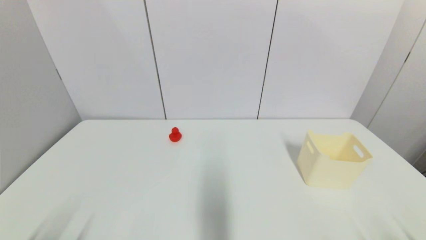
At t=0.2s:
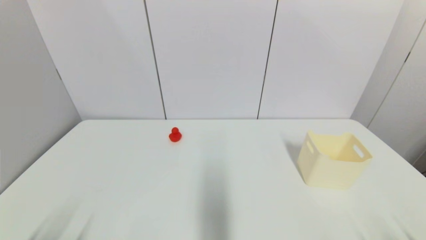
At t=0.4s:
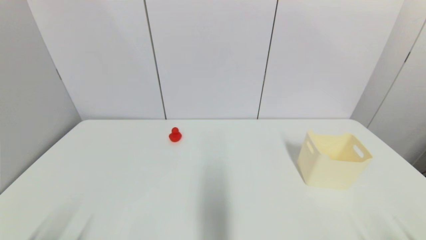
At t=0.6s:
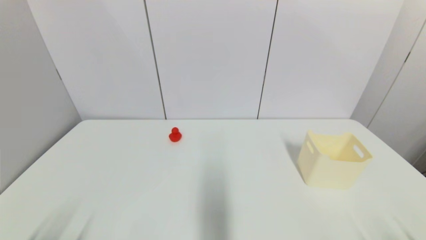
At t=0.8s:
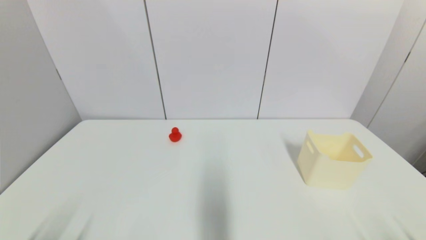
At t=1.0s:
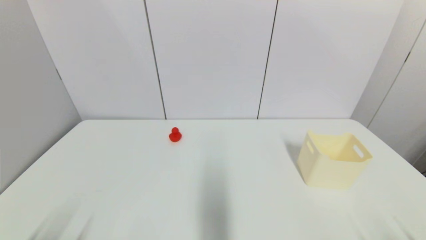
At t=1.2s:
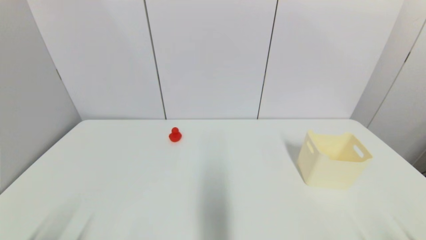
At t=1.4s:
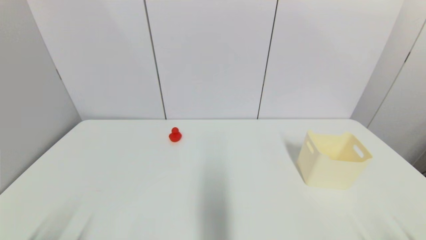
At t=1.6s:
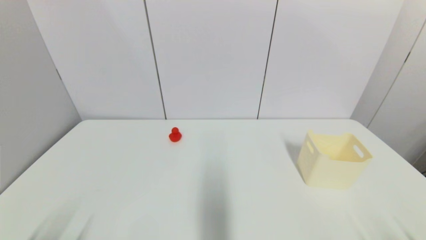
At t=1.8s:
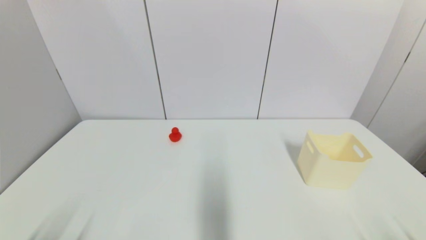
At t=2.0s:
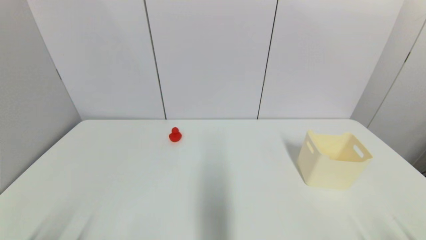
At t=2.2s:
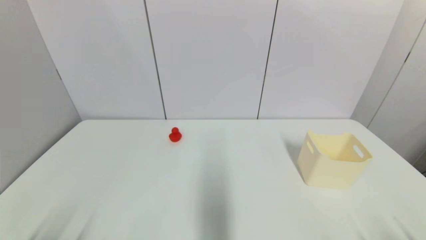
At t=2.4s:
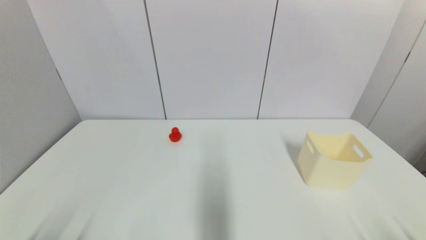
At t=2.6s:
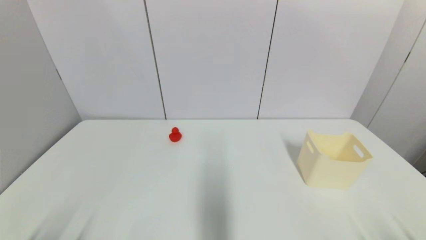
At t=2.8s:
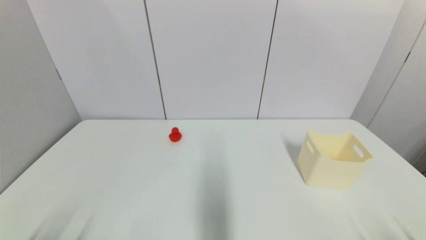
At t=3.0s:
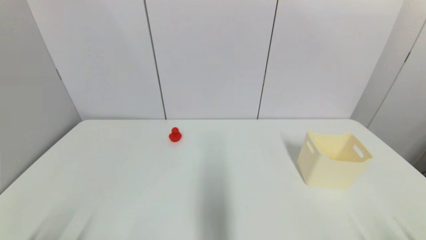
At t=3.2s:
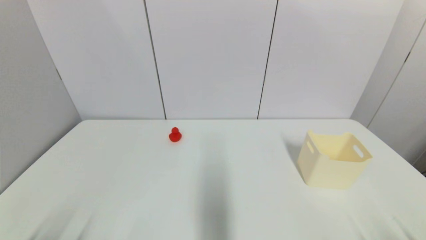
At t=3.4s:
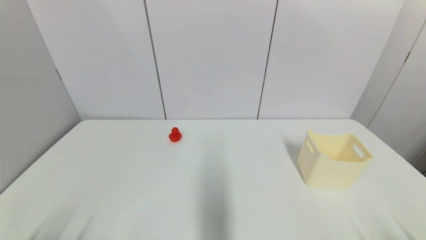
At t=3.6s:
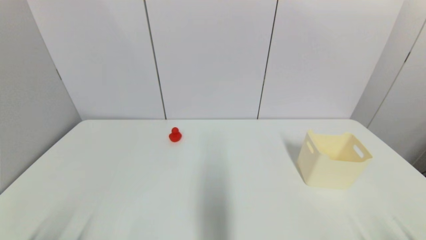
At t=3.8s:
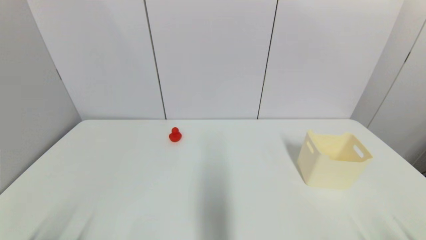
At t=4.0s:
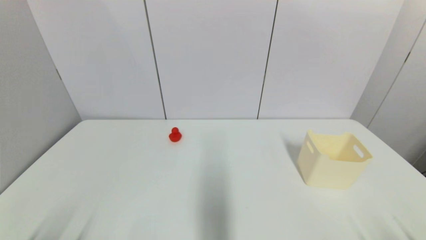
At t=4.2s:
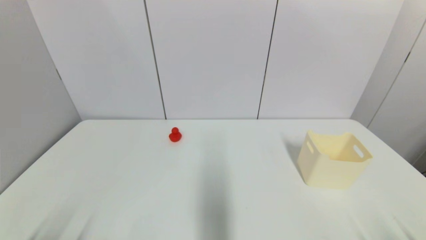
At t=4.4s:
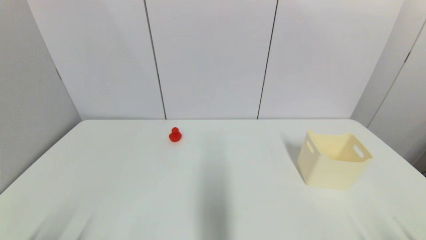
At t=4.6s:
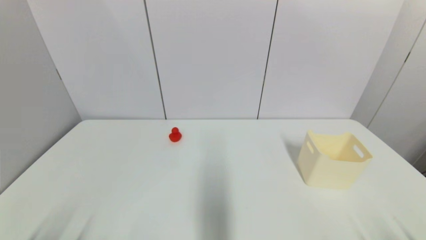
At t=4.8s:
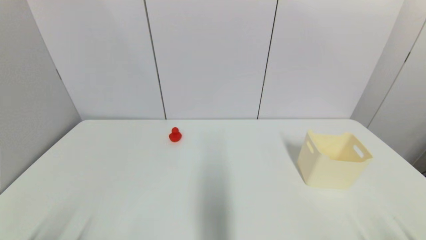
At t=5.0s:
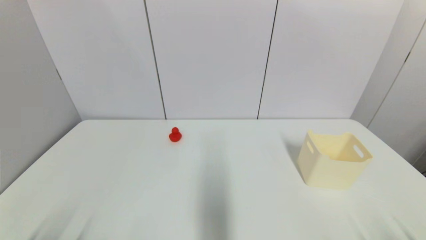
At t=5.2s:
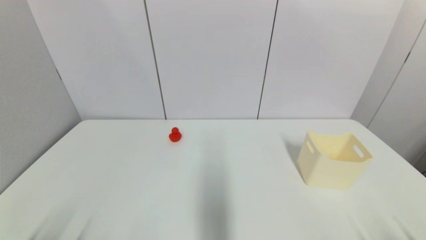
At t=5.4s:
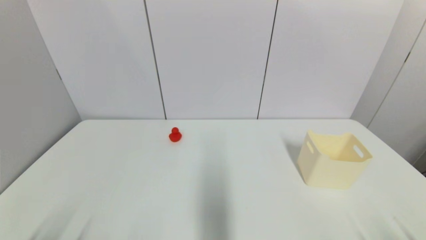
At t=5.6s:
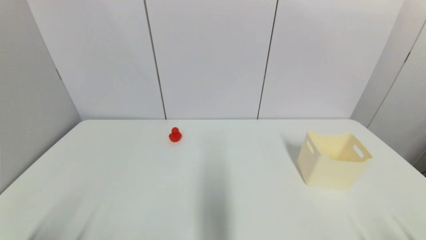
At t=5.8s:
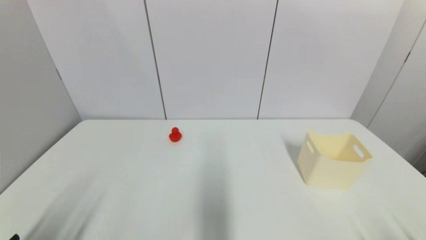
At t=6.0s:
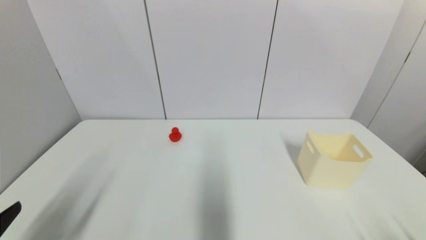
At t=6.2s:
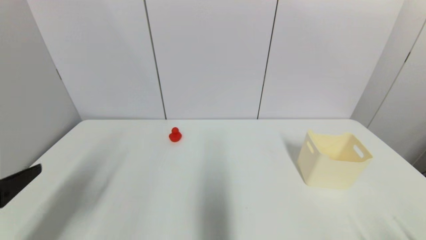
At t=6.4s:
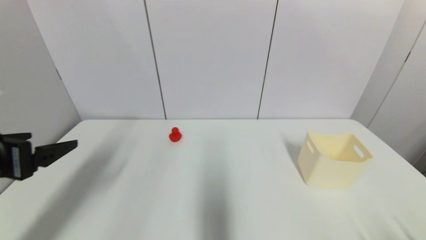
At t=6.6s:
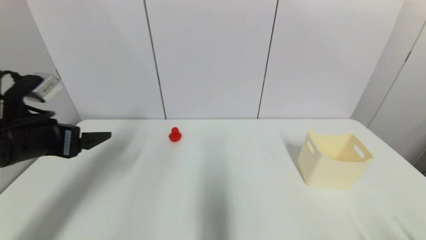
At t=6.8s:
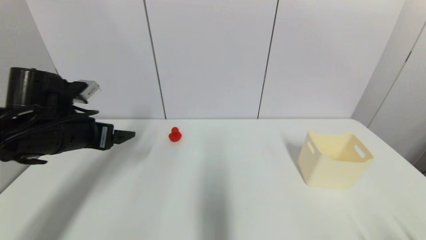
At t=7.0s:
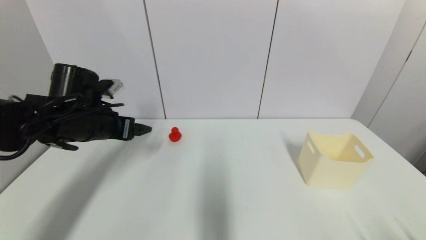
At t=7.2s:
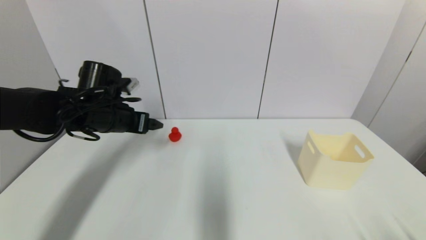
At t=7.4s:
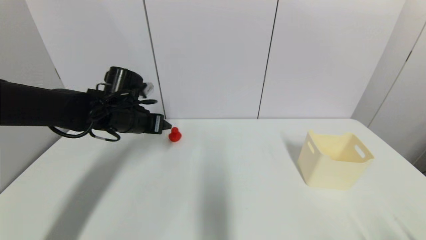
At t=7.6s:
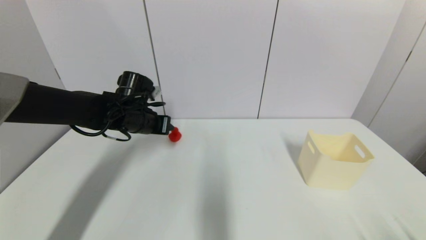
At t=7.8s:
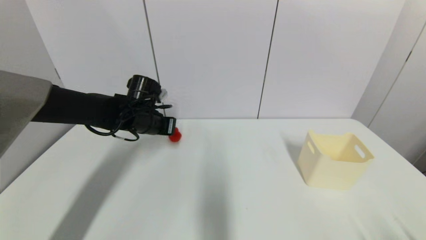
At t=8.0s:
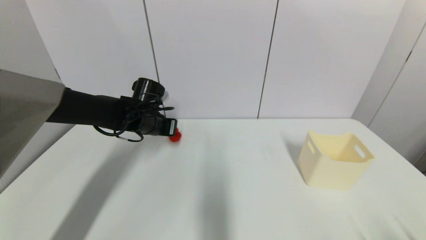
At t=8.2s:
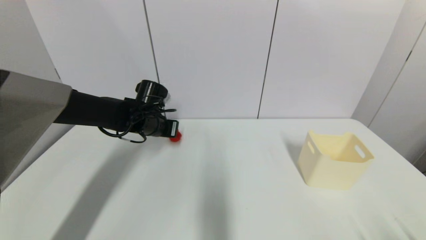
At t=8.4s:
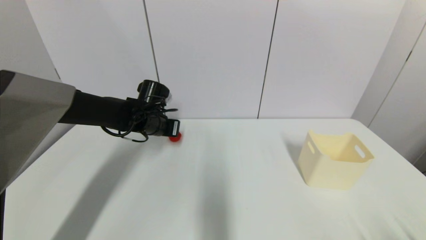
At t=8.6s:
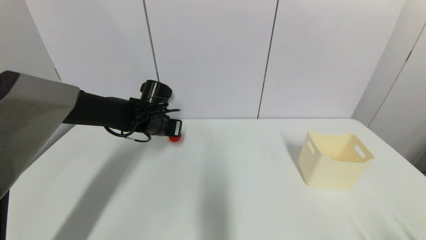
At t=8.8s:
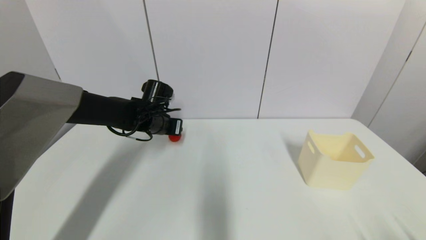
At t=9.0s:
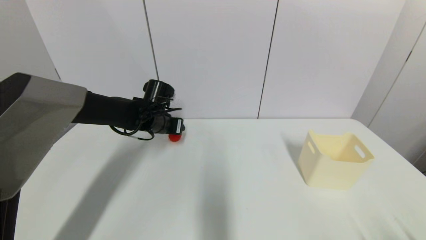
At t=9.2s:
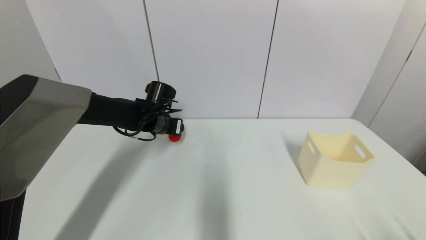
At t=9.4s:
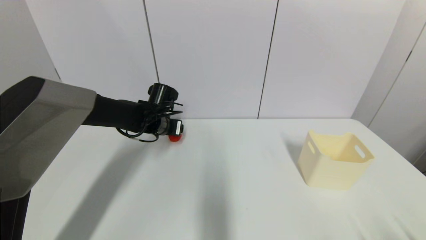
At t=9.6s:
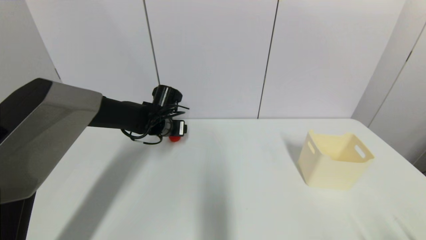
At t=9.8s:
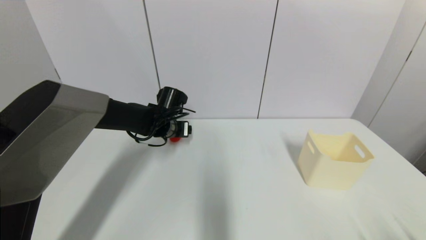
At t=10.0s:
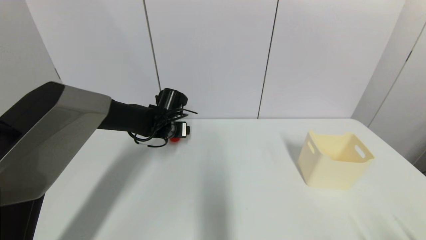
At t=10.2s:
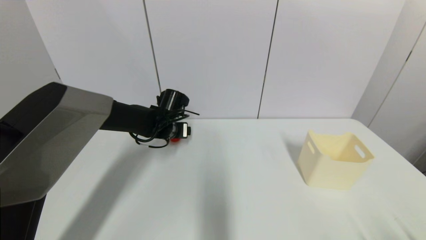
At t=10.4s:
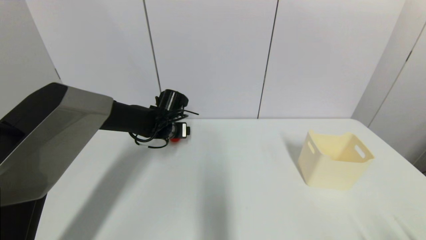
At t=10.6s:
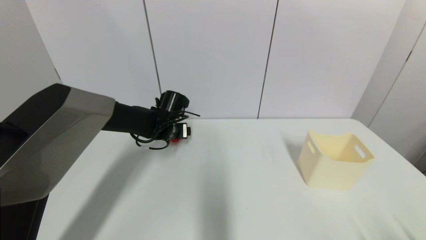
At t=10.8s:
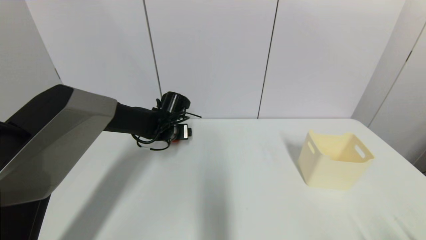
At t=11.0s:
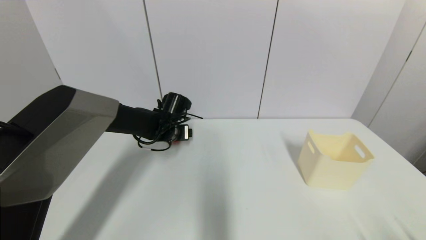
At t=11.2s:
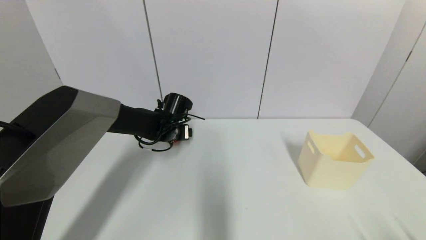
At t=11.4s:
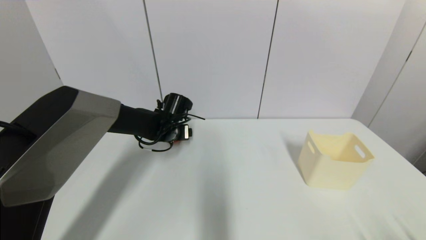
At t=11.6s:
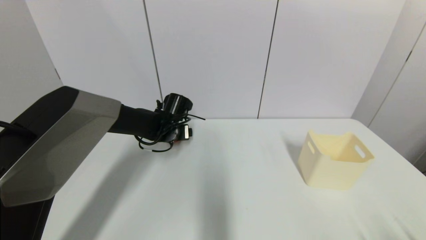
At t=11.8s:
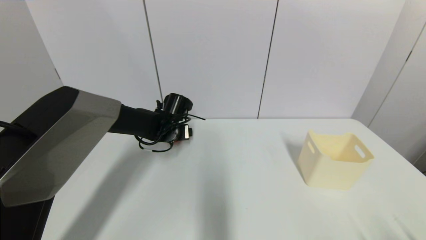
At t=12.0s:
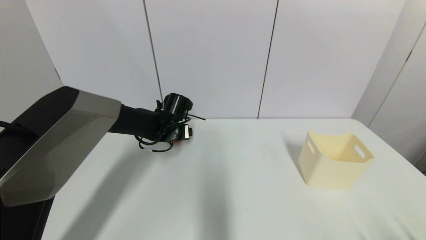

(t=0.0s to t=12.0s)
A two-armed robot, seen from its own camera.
t=0.0s - t=4.4s: Both grippers stay put.
t=4.4s - t=6.0s: The left gripper goes some 15 cm upward.
t=6.0s - t=7.6s: The left gripper moves forward, about 35 cm, and closes its fingers.
t=7.6s - t=9.0s: The left gripper moves some 5 cm, and closes and opens again.
t=9.0s - t=10.4s: The grippers move only a little.
t=10.4s - t=12.0s: Both grippers stay about where they are.

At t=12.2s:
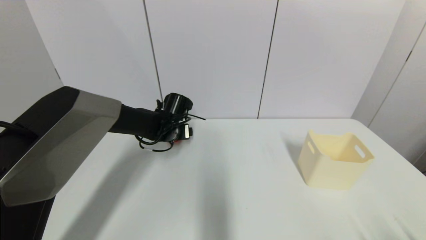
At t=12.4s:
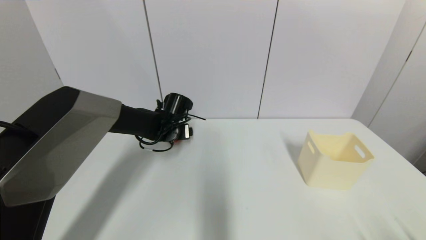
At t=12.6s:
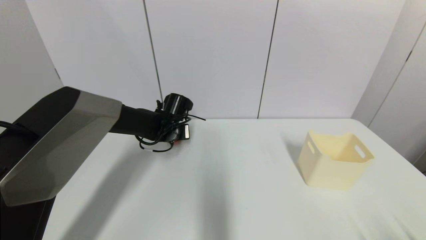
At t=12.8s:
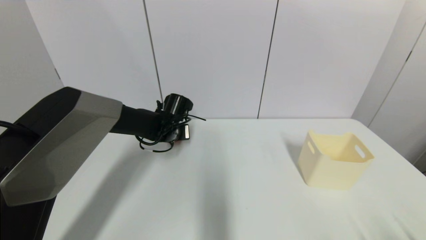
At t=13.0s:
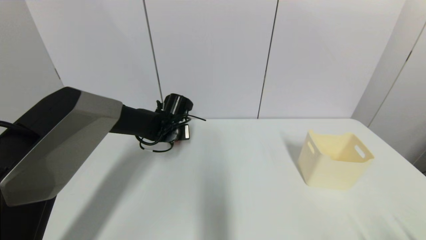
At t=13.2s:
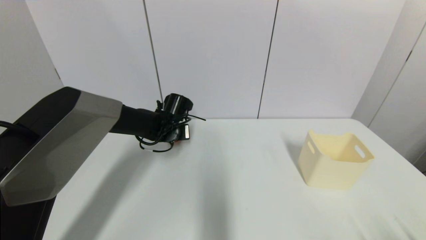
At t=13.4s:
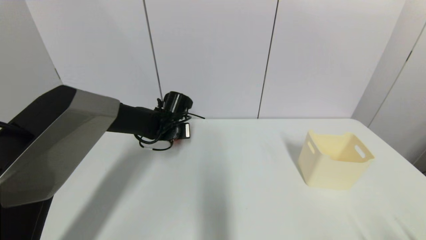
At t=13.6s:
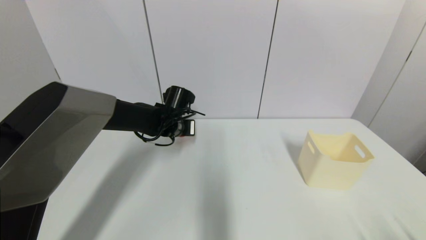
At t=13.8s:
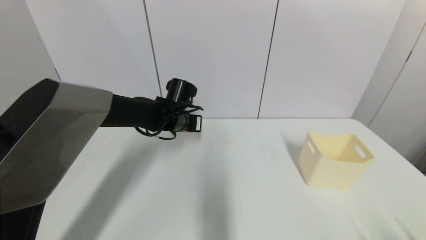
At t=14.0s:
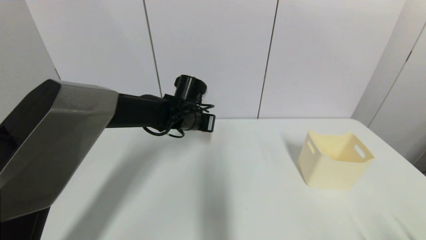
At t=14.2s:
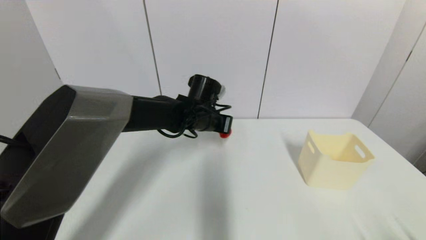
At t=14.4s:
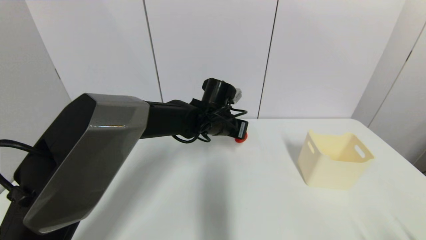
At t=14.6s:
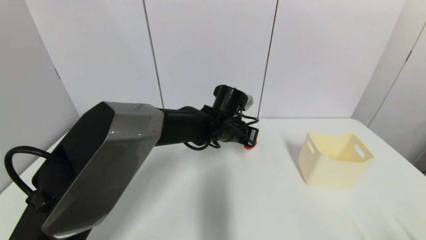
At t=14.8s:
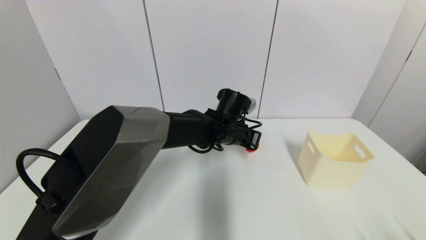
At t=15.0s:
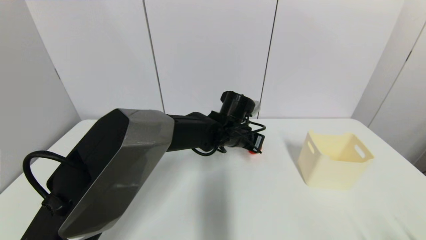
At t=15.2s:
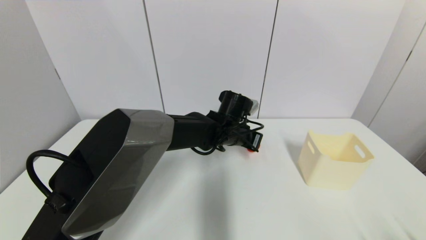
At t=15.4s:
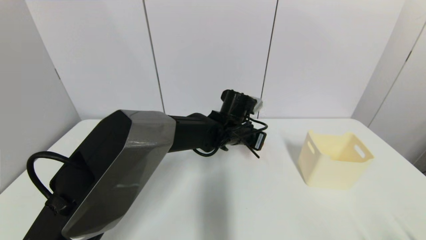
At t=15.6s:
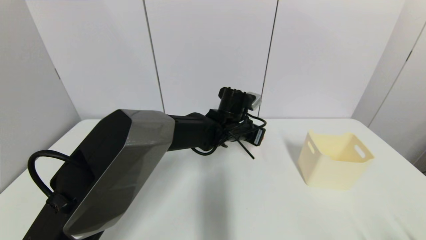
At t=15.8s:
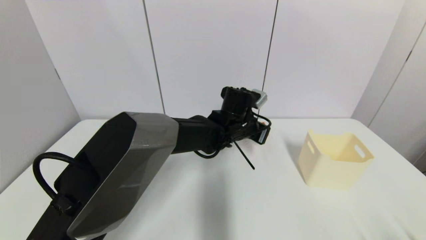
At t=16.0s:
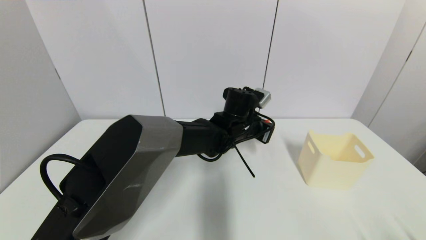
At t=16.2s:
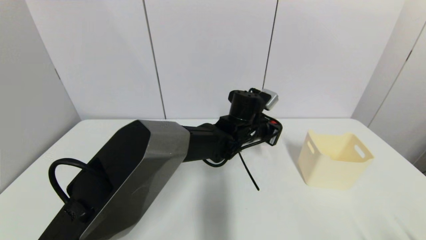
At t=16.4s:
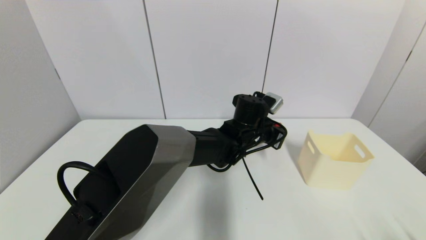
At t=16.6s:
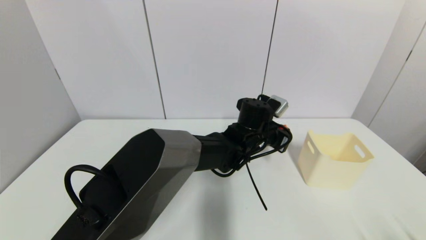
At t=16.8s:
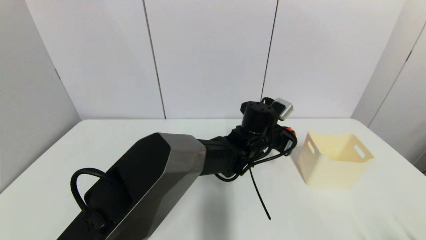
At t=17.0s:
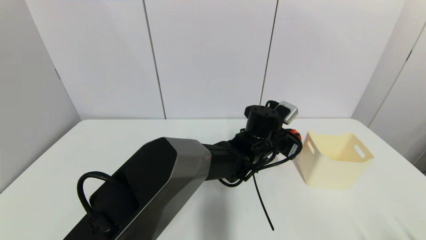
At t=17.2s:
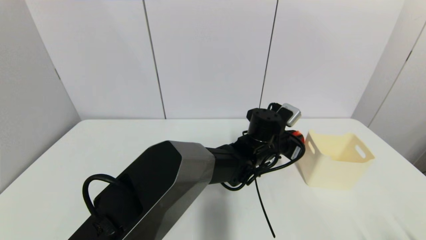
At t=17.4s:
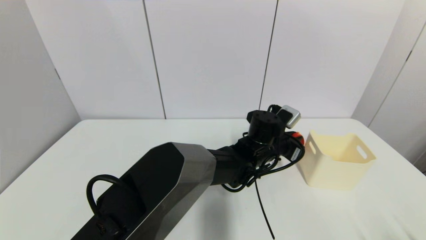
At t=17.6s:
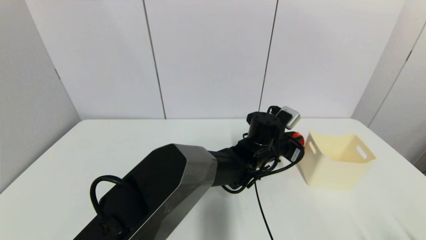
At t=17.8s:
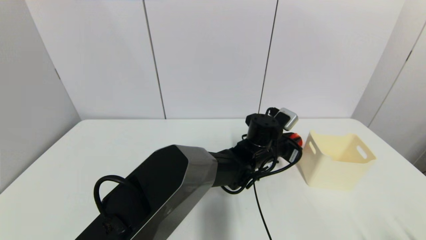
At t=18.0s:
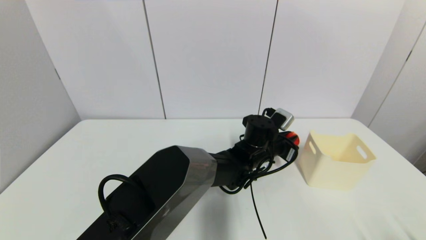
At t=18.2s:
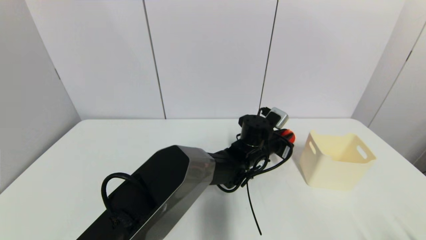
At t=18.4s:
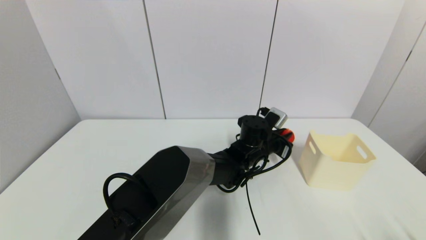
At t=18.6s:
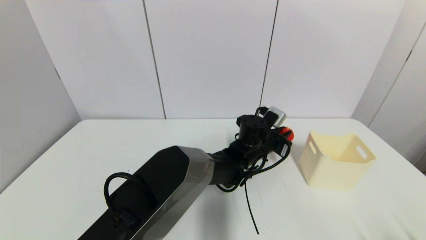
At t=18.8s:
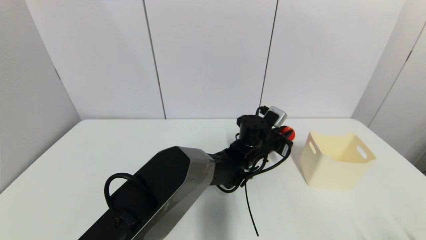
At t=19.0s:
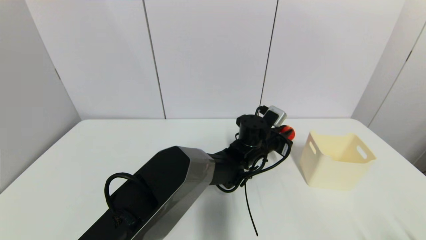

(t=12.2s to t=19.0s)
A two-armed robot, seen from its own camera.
t=12.2s - t=13.6s: The left gripper closes.
t=13.6s - t=15.0s: The left gripper moves to the right, roughly 15 cm.
t=16.2s - t=17.6s: The left gripper shifts by about 5 cm.
t=17.6s - t=19.0s: The grippers stay close to where they were, moving slightly.
